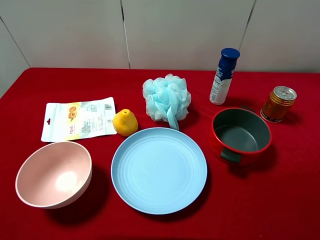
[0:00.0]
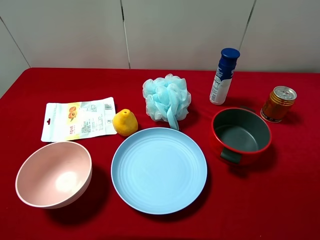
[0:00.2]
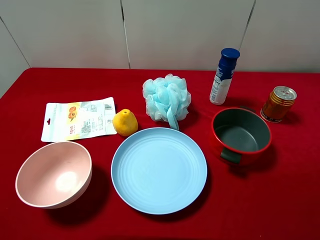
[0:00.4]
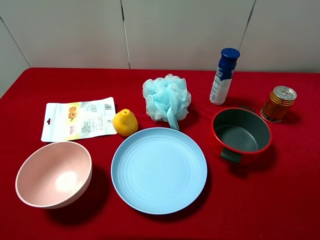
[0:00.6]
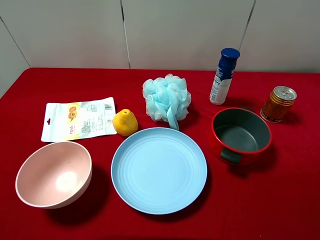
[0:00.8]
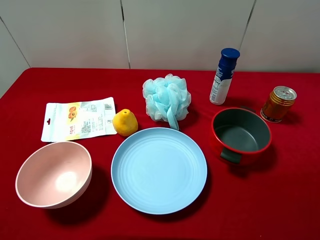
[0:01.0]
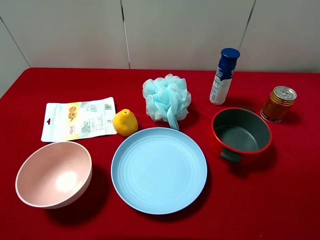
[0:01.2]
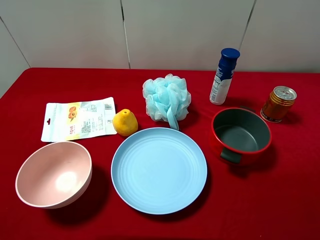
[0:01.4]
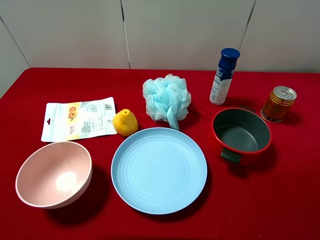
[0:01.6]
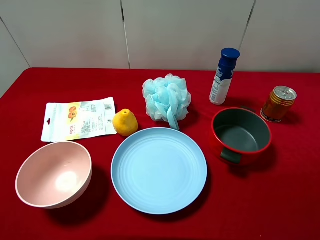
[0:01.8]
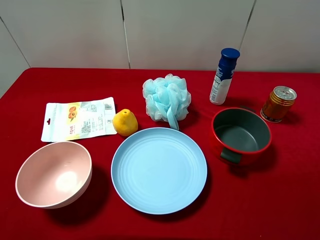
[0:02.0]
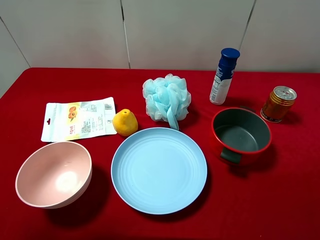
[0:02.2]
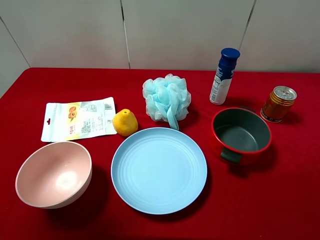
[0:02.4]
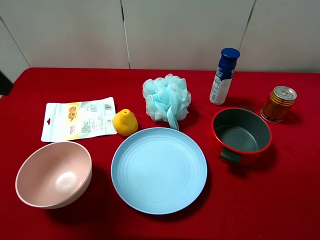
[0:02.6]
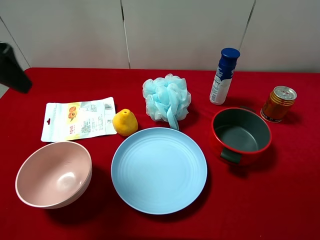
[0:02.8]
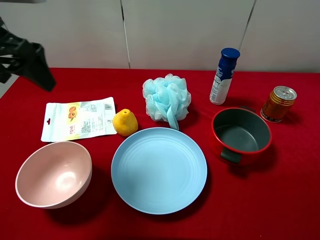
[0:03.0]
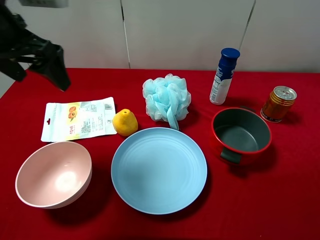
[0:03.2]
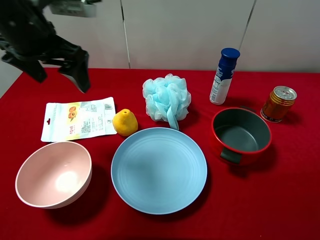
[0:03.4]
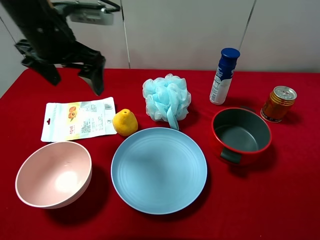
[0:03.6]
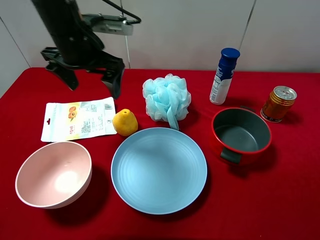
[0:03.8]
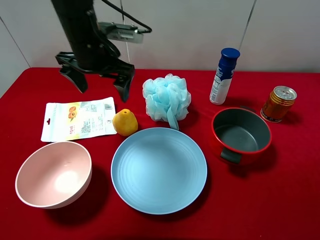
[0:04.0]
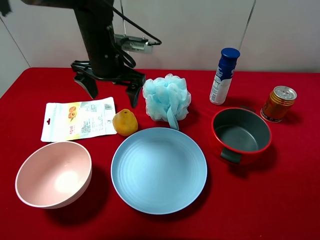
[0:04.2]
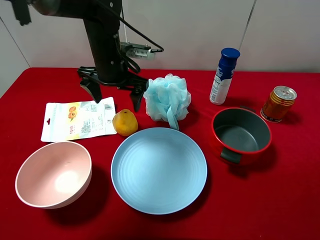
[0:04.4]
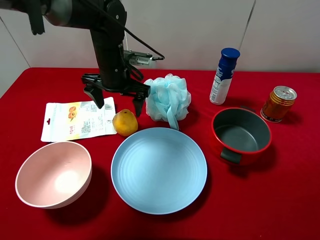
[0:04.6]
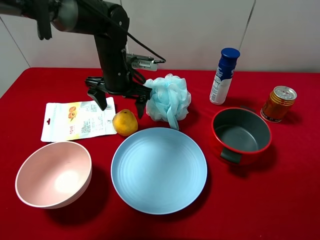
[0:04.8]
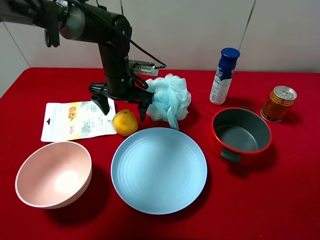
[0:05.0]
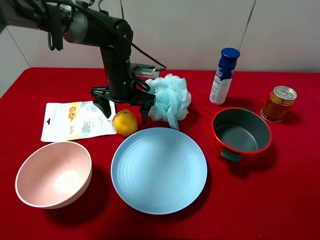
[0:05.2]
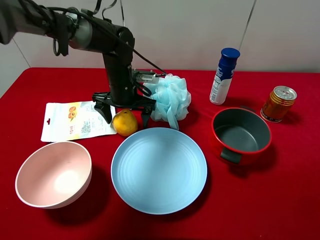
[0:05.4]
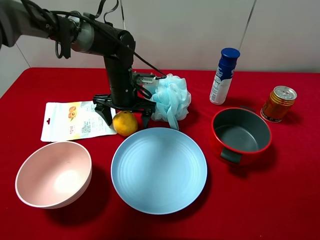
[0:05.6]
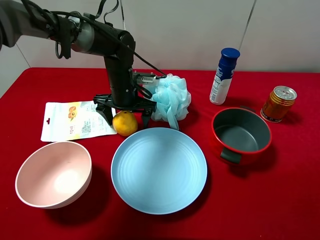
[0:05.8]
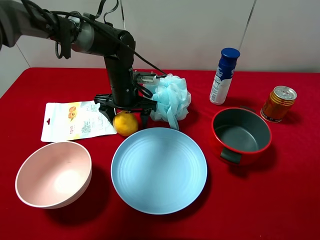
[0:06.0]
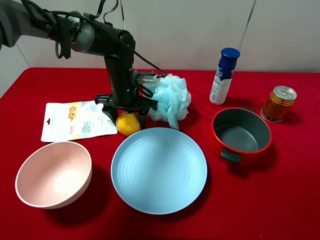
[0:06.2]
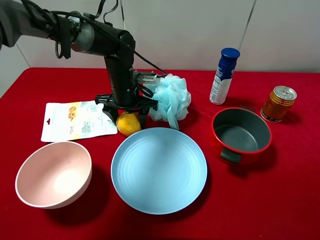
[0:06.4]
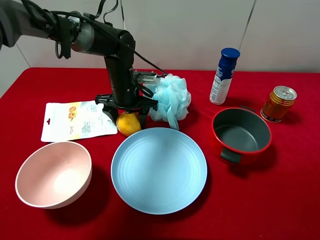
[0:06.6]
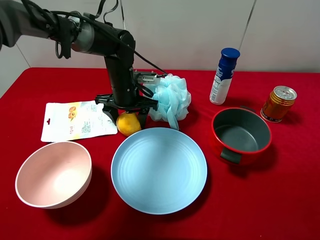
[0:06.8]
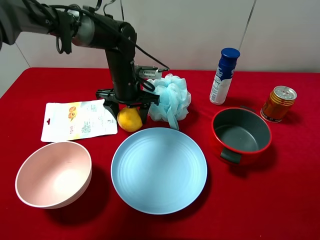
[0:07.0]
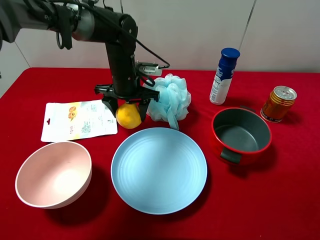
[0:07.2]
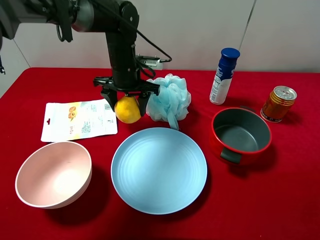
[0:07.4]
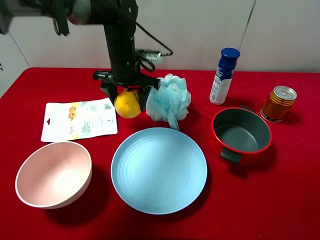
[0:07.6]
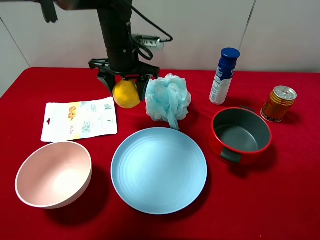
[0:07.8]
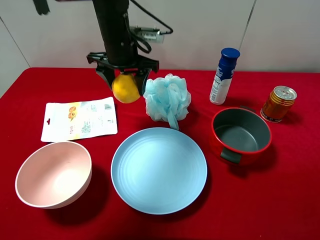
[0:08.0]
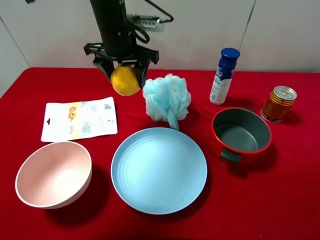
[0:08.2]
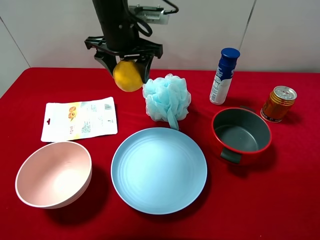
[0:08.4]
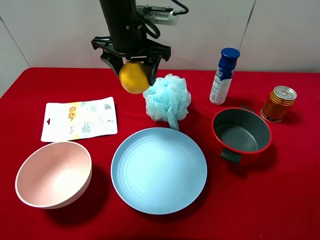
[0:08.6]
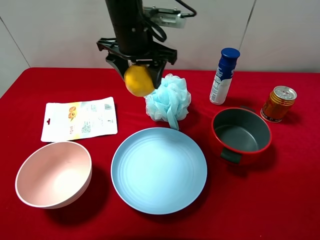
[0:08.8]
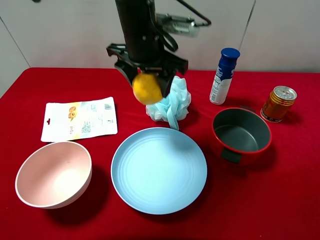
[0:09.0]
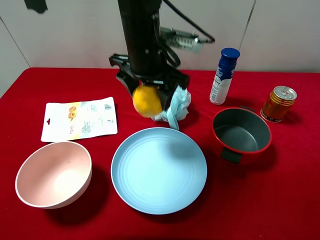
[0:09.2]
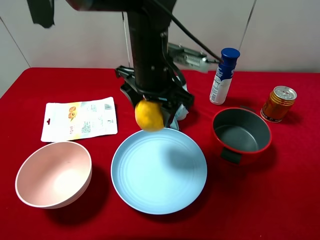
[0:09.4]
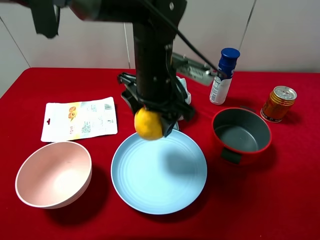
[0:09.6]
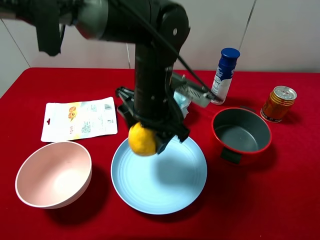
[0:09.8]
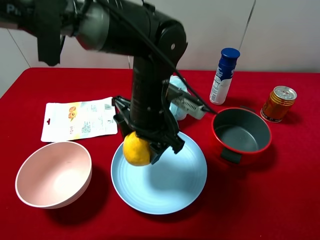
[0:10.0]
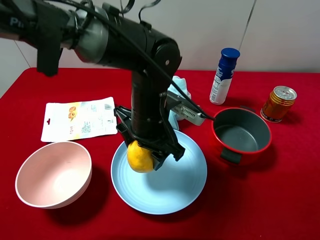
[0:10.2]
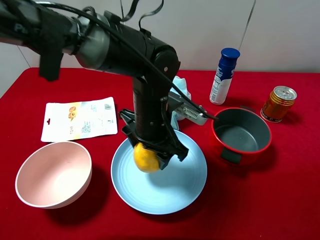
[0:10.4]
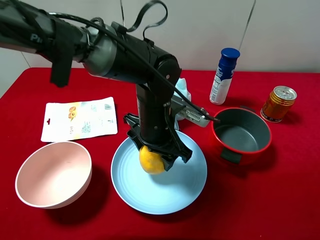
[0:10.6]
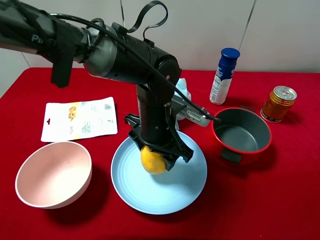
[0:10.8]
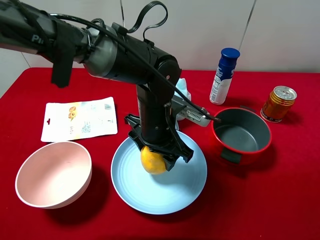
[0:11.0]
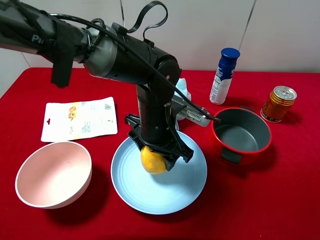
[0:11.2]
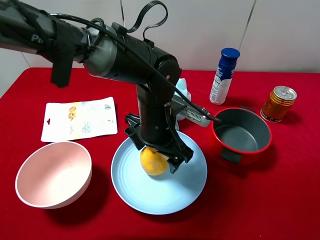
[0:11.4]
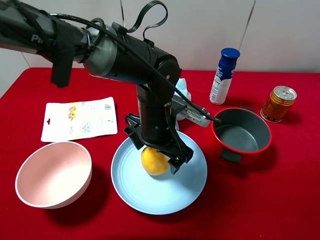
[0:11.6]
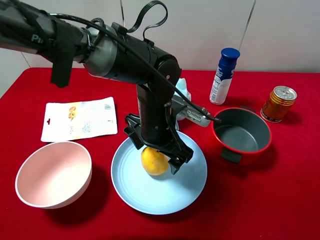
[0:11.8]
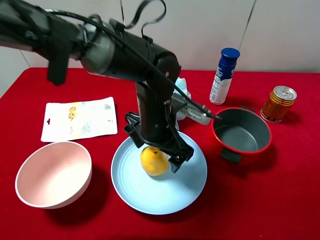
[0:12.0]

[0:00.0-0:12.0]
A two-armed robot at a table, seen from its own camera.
Task of the whole recording: pick up an item with a gripper and place it in a random container on the desktop.
0:00.0 to 0:01.6: Both grippers stay put.
0:01.6 to 0:03.0: The left gripper goes approximately 25 cm forward.
0:03.0 to 0:04.4: The left gripper moves to the right, downward and forward, some 25 cm.
0:04.4 to 0:06.0: The left gripper goes roughly 10 cm downward, and closes its fingers.
0:06.0 to 0:07.6: The left gripper moves upward, about 5 cm.
0:07.6 to 0:09.0: The left gripper moves upward, backward and to the right, about 10 cm.
0:09.0 to 0:10.4: The left gripper is displaced downward and backward by roughly 15 cm.
0:10.4 to 0:12.0: The left gripper opens up.

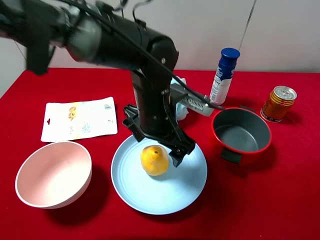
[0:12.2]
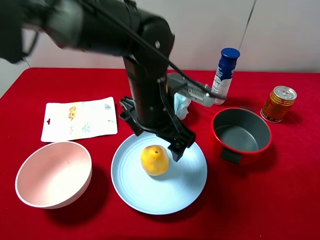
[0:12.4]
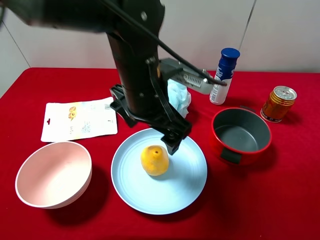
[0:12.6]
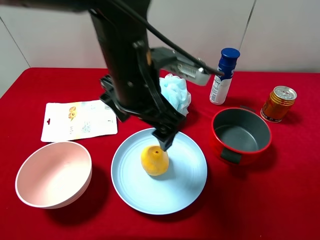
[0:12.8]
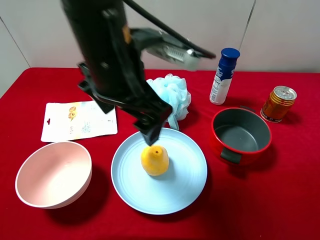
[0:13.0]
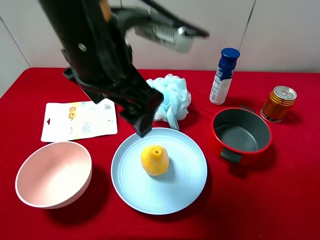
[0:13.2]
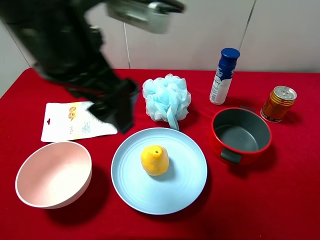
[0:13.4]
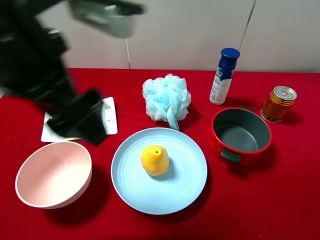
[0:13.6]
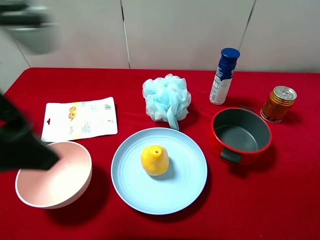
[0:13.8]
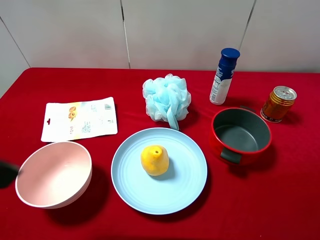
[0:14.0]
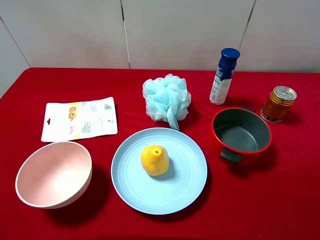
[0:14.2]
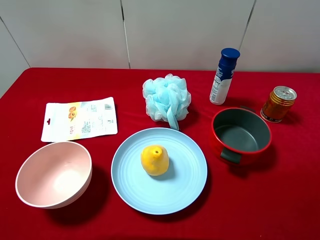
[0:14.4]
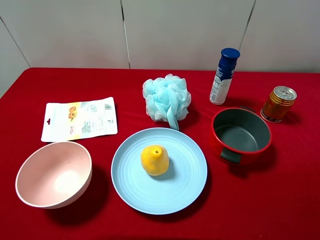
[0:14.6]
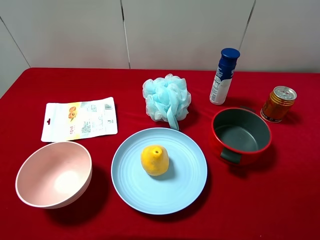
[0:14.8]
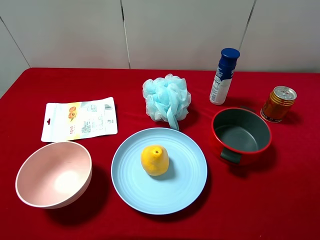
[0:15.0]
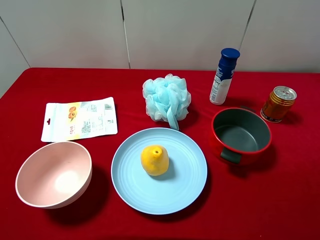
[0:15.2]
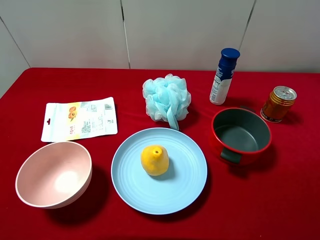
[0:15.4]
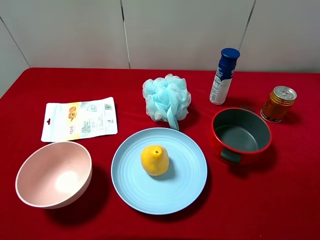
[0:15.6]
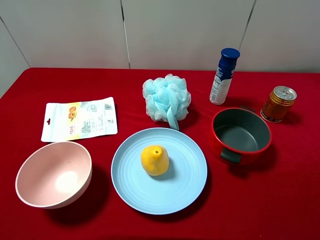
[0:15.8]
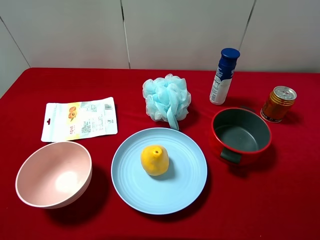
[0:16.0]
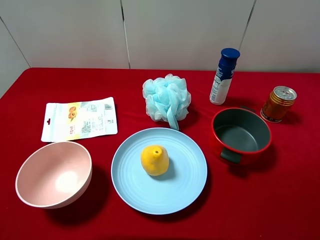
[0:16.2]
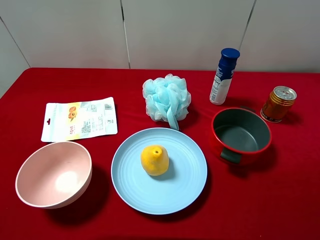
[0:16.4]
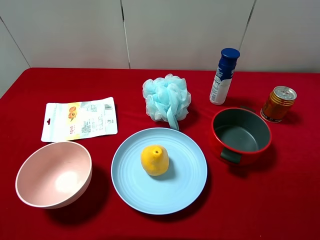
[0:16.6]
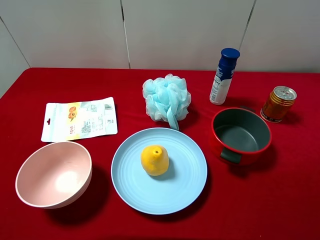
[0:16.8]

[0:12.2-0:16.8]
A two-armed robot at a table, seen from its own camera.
Task of the whole recording: pick up an item with a gripper and place it in a random container on the desktop.
0:12.2 to 0:13.8: The left gripper heads to the left, upward and backward, covering approximately 30 cm.
0:13.8 to 0:15.2: The left gripper heads to the left, backward and downward, covering about 20 cm.

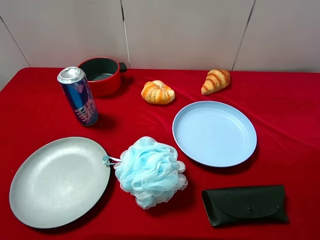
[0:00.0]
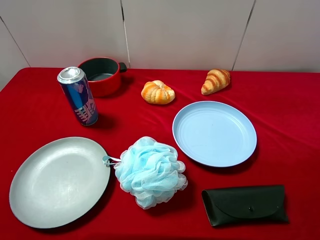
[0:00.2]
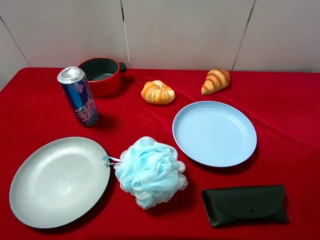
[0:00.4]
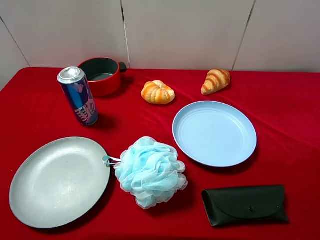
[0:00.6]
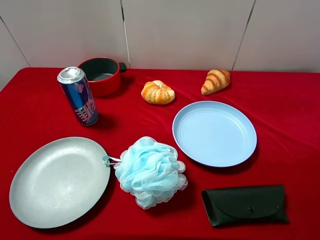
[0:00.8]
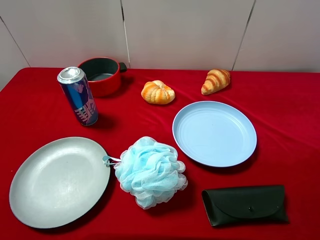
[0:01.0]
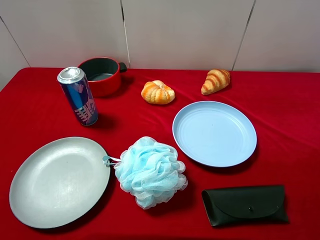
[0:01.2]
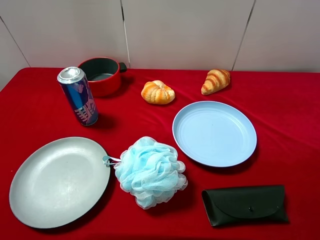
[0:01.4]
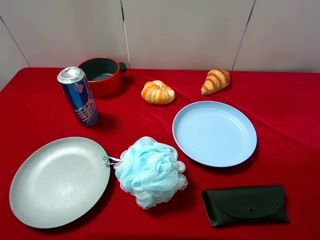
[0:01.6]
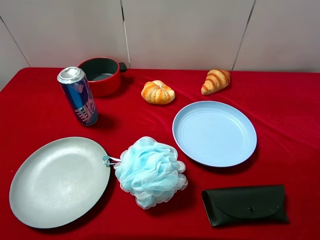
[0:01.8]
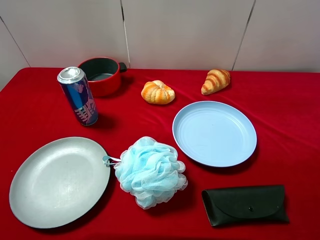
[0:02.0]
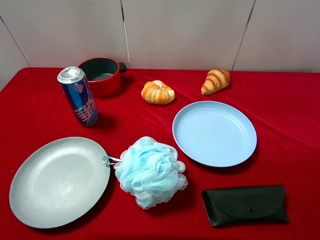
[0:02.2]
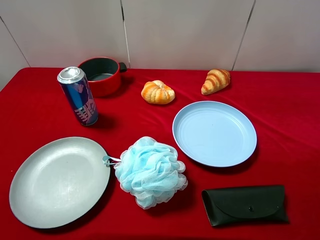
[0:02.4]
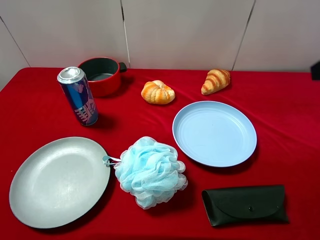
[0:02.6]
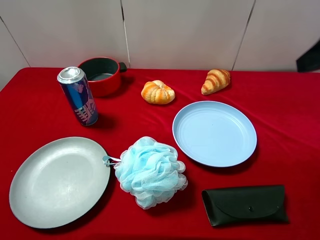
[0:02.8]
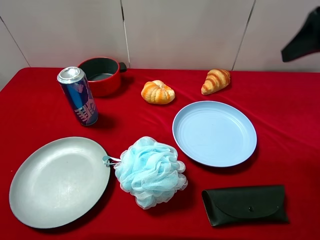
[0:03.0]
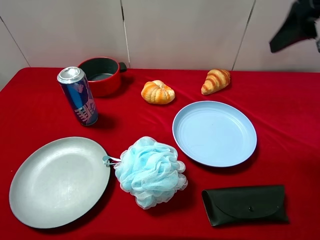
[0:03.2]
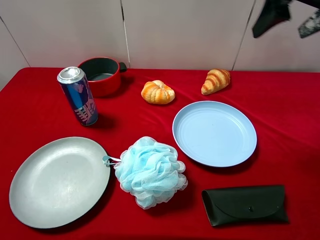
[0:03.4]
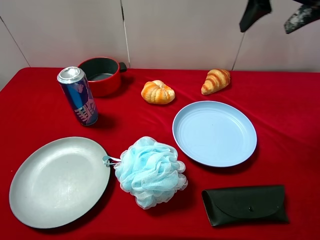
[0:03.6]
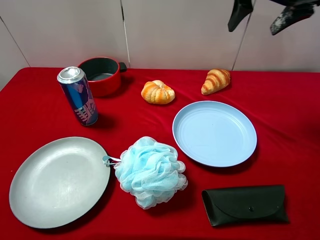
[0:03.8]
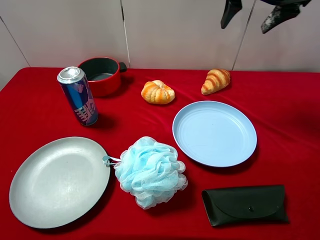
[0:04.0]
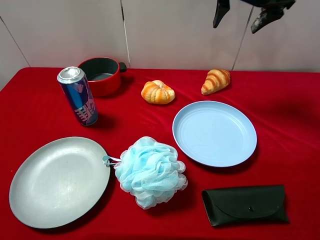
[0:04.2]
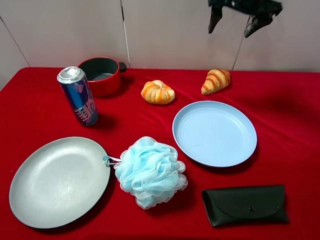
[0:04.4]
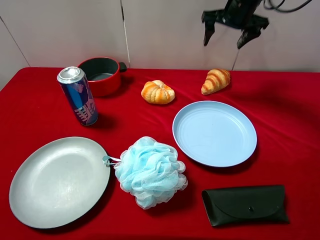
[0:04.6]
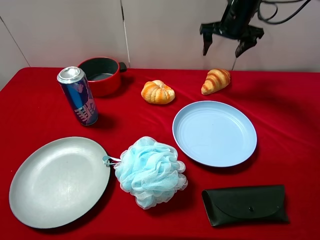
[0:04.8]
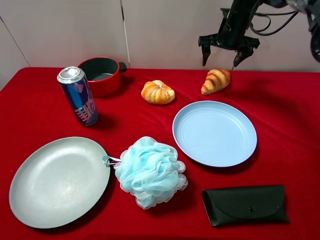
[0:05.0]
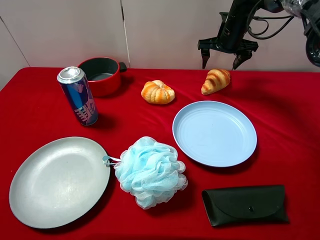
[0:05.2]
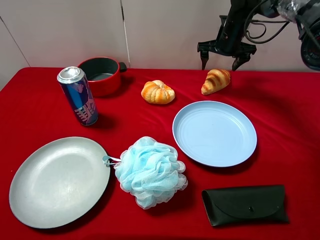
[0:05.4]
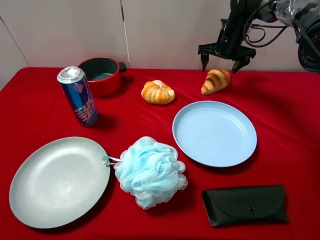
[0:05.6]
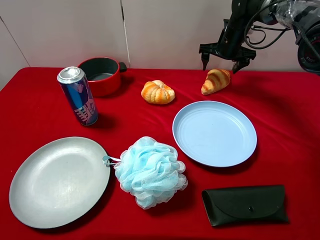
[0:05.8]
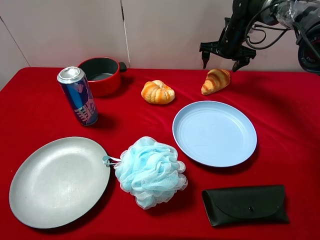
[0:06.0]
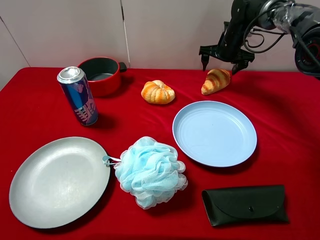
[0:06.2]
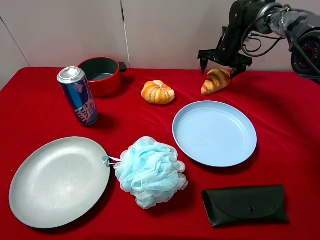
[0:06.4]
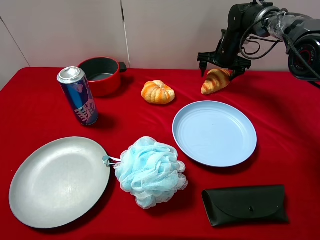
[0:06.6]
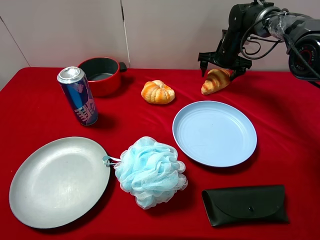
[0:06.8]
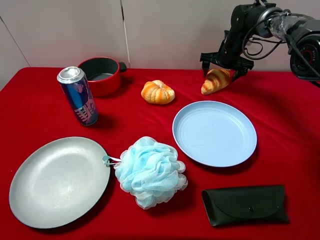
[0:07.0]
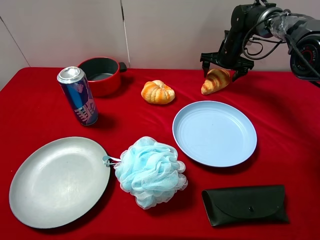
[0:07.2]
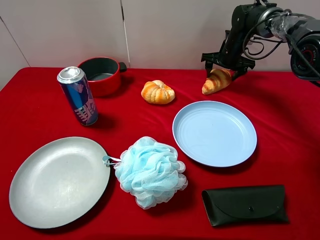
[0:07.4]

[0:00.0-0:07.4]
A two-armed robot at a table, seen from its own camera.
Task of the whole recording: pick up an item with a gripper and place it in a random container on the desktop.
0:00.0 to 0:01.4: The two grippers keep their place.
0:01.4 to 0:03.0: The right gripper travels forward by approximately 25 cm.
0:03.0 to 0:04.4: The right gripper moves forward, approximately 25 cm.
0:04.4 to 0:06.0: The right gripper is displaced downward and forward by about 15 cm.
0:06.0 to 0:07.4: The right gripper closes its fingers.
